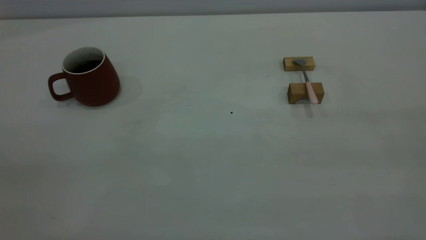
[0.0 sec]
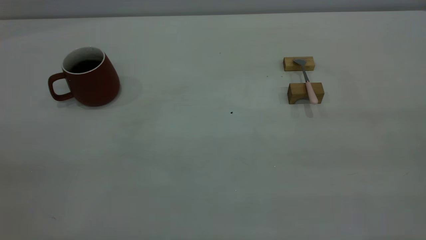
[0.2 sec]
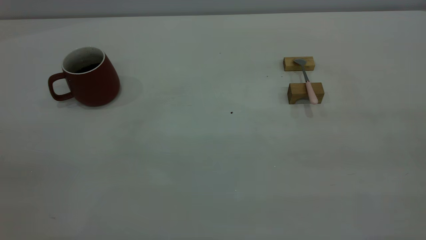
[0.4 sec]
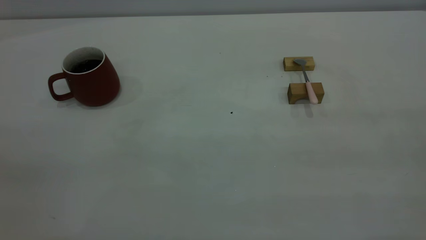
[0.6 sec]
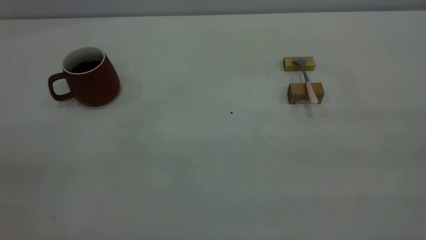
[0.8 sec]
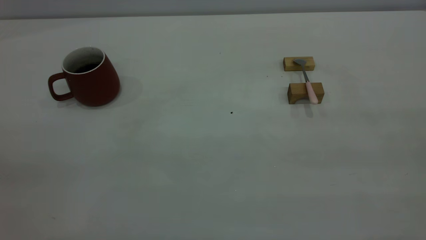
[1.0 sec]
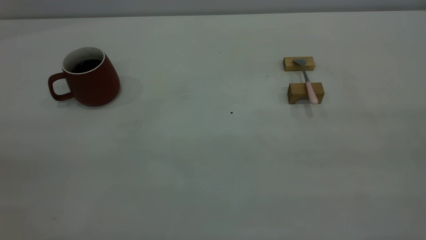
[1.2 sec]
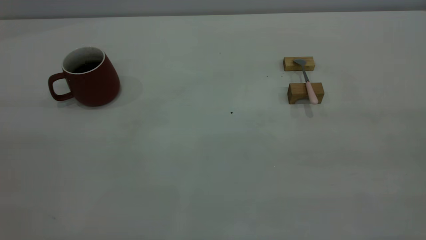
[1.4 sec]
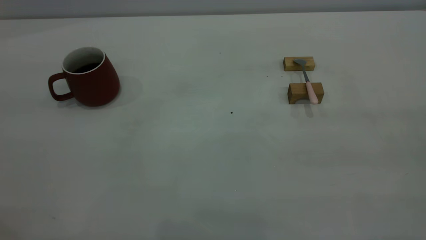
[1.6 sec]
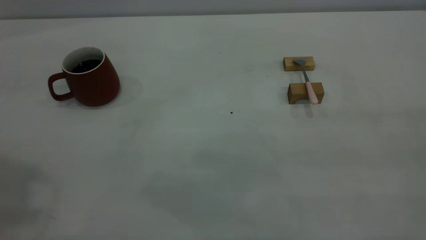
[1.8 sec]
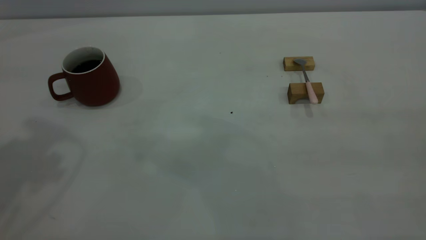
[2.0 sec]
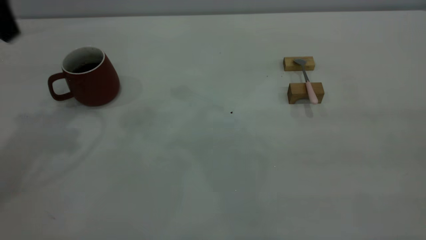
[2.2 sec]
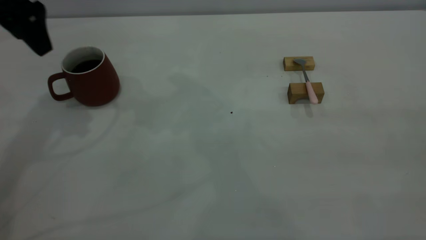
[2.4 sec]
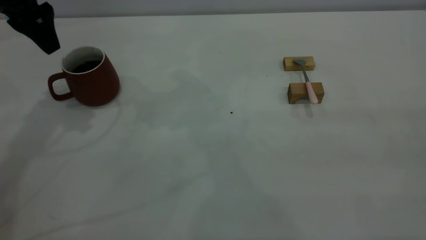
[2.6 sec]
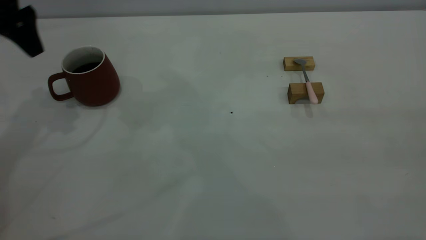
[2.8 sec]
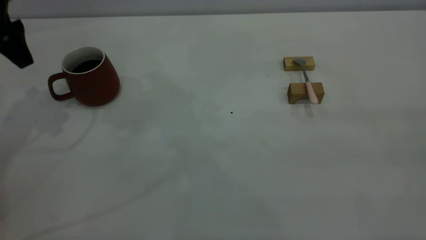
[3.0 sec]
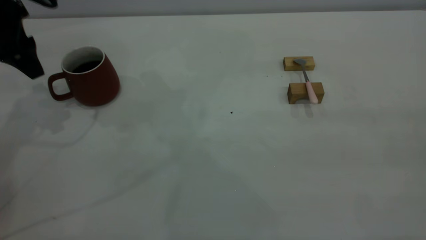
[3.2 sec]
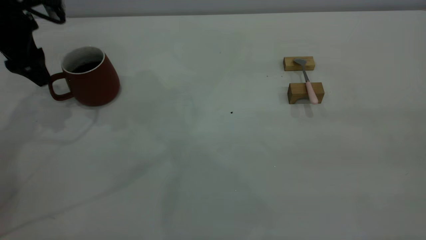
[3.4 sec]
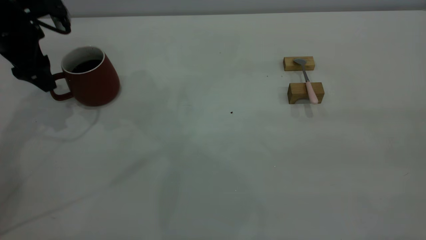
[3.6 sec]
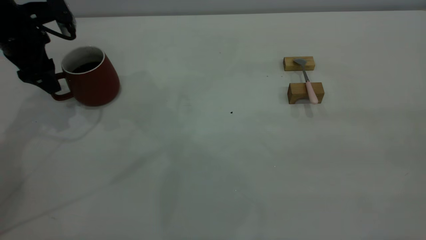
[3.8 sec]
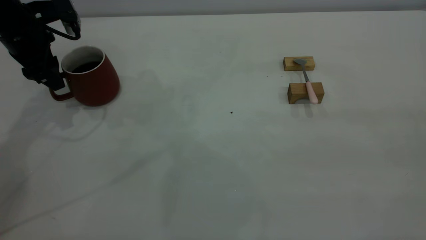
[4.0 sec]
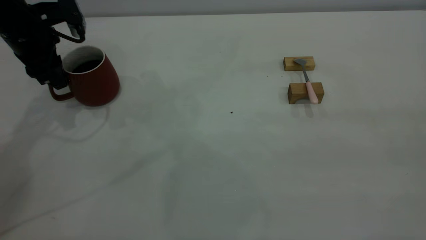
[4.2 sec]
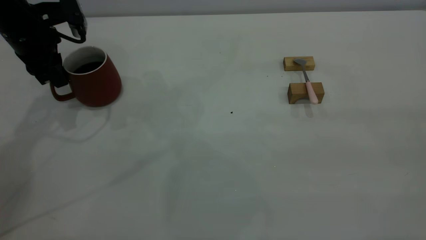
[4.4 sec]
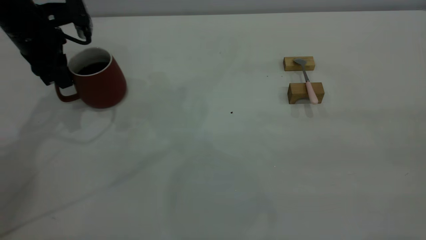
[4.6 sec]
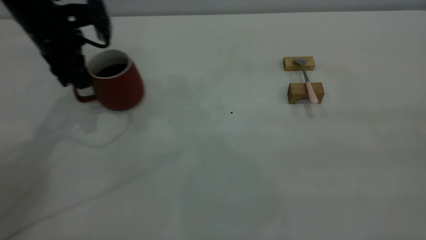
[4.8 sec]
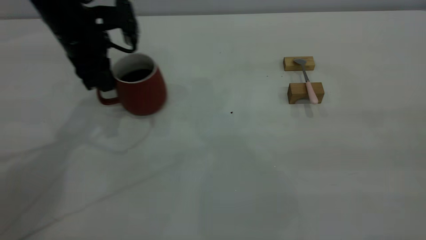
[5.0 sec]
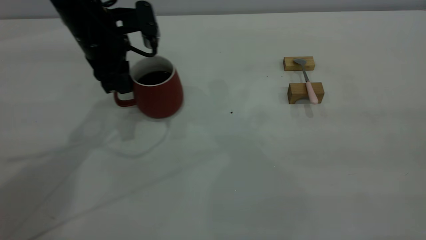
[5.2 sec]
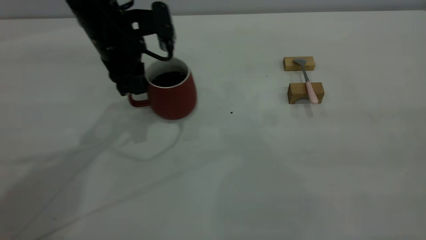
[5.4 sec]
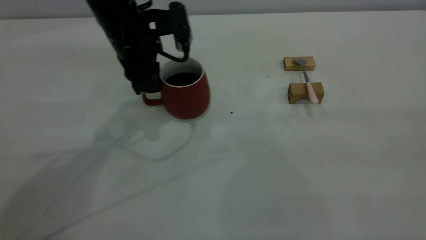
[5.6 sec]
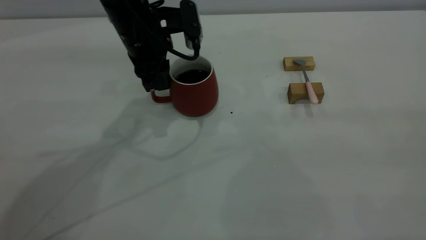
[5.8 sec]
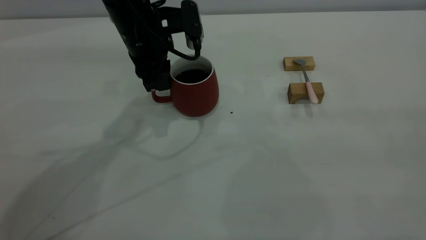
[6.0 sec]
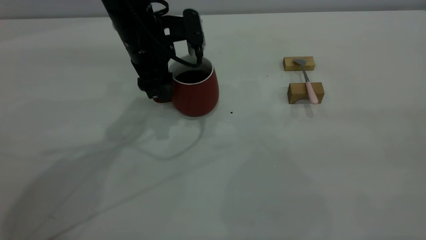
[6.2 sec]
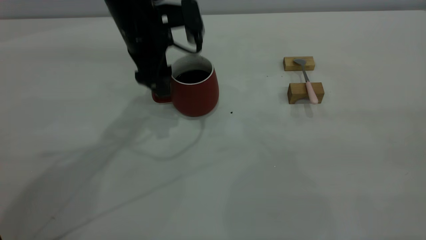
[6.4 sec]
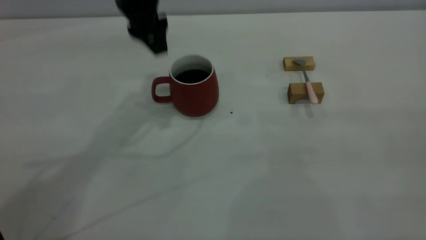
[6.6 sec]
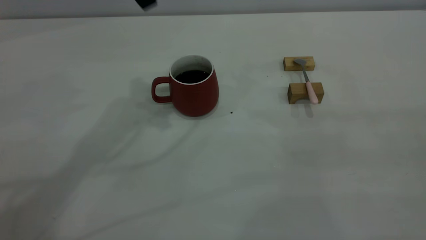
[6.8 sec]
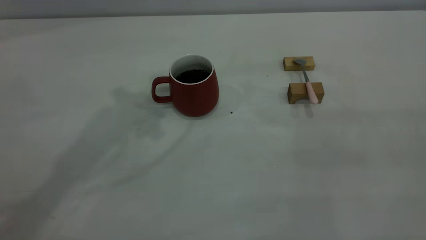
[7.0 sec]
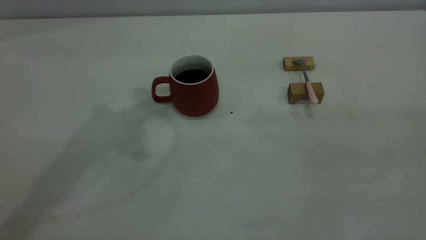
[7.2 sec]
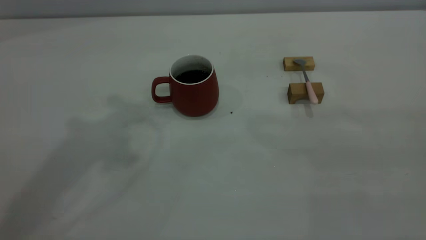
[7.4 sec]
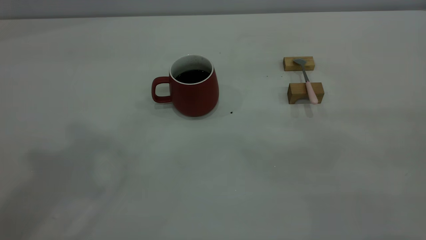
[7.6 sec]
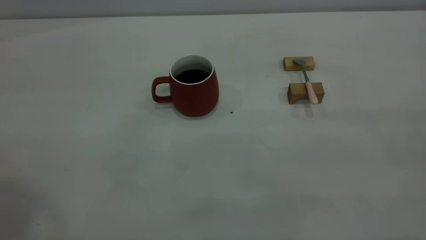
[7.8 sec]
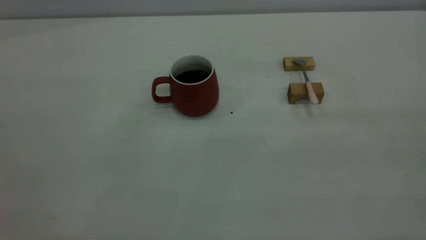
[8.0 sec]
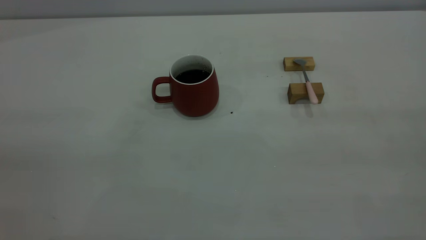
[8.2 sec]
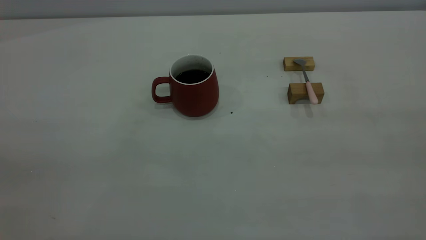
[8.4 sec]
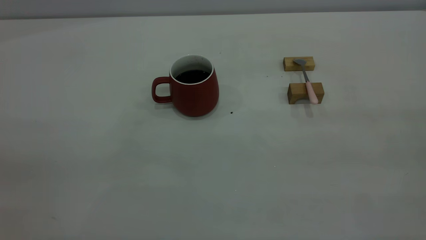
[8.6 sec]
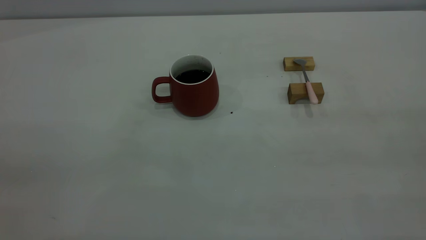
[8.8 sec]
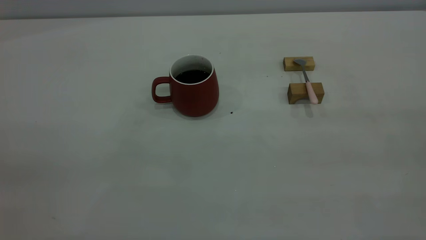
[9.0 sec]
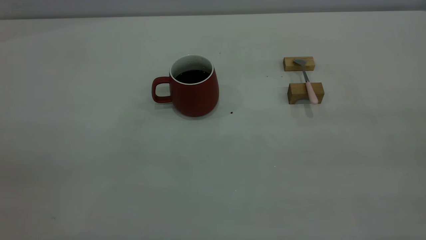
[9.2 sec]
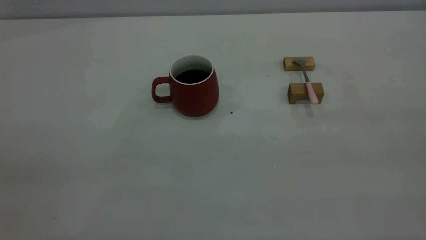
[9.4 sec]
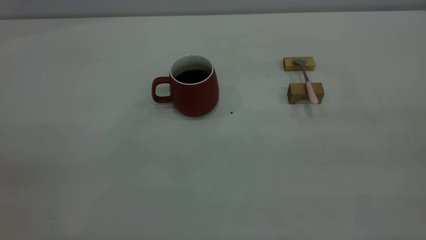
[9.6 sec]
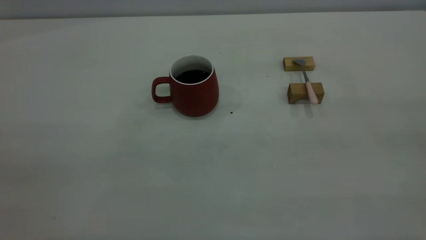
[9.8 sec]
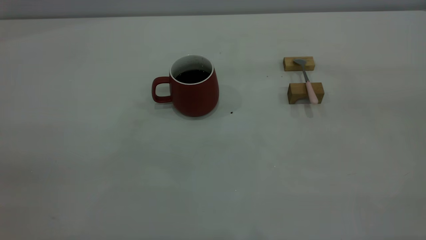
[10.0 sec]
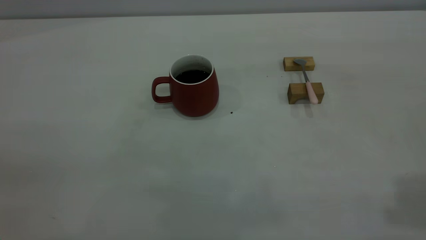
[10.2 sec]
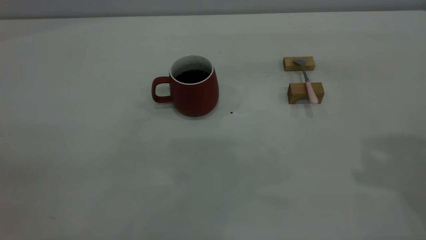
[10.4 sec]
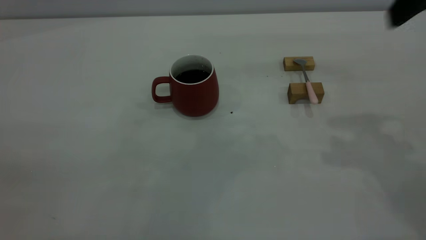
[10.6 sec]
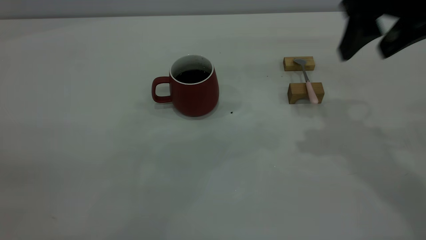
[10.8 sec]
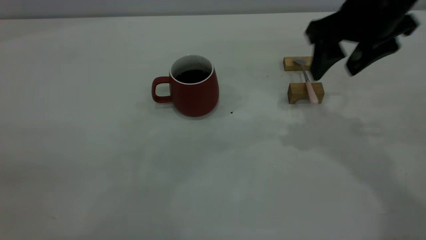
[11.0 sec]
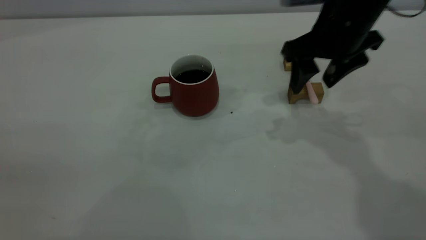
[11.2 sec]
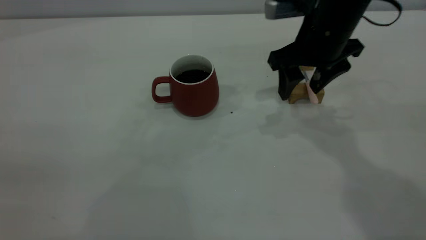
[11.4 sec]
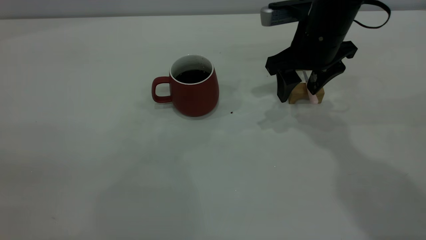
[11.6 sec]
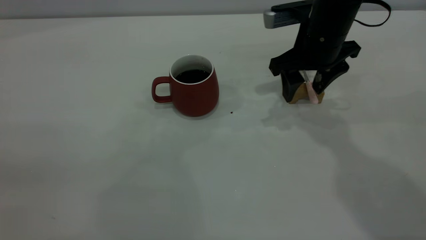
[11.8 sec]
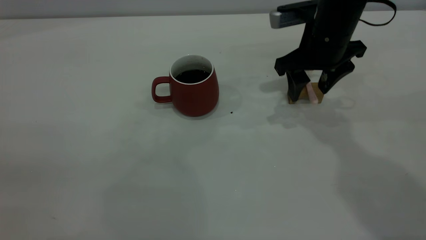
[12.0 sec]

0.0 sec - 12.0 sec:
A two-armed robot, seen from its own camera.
Step, 0.0 sec - 6.4 sec: Move the cup with coffee to the center of view.
1.6 sec - 3.0 sec: The left gripper moves forward and downward, about 35 cm, and opens up.
3.0 sec - 4.4 sec: The left gripper moves downward, some 5 cm, and closes up.
4.4 sec - 6.0 sec: The left gripper goes approximately 20 cm to the right.
6.0 sec - 7.6 sec: The left gripper is displaced upward and backward by roughly 40 cm, and opens, then closes again.
10.4 sec - 12.0 sec: The right gripper travels downward, forward and to the left by approximately 30 cm.

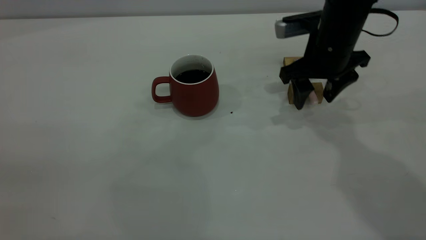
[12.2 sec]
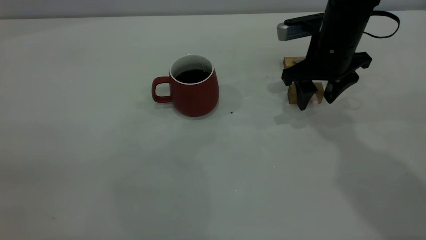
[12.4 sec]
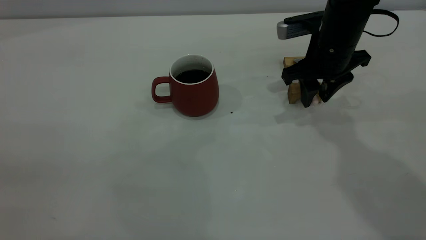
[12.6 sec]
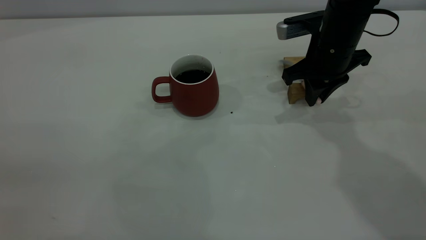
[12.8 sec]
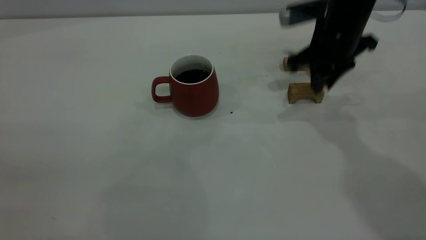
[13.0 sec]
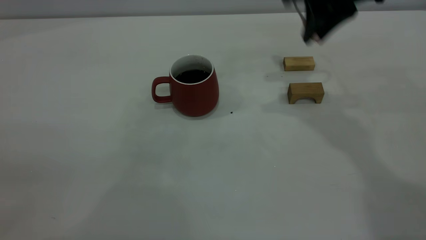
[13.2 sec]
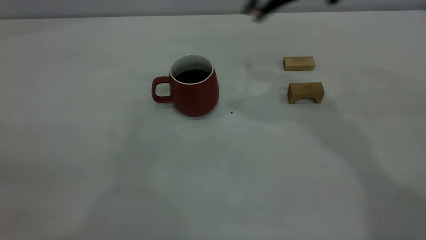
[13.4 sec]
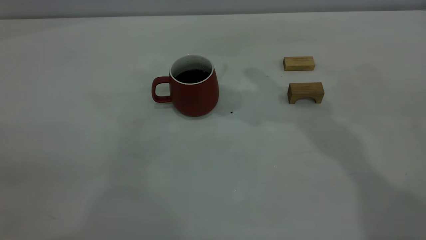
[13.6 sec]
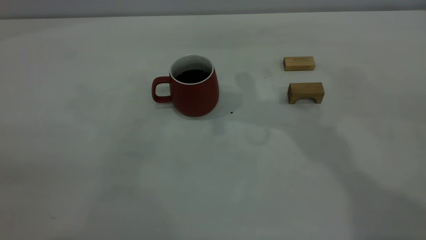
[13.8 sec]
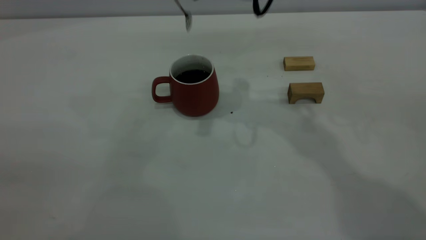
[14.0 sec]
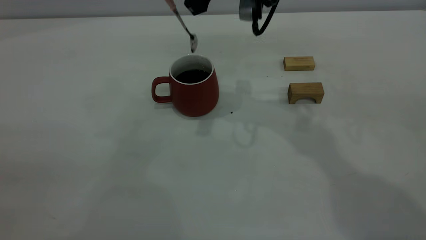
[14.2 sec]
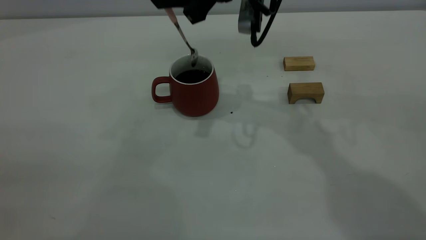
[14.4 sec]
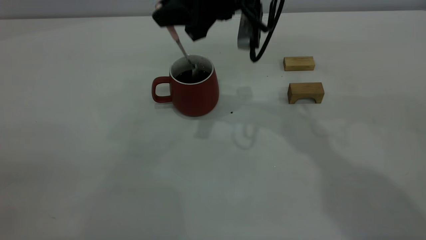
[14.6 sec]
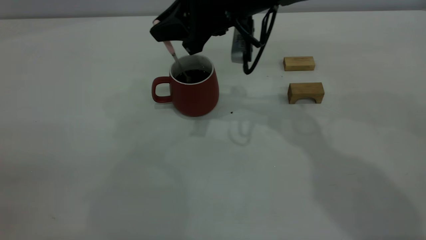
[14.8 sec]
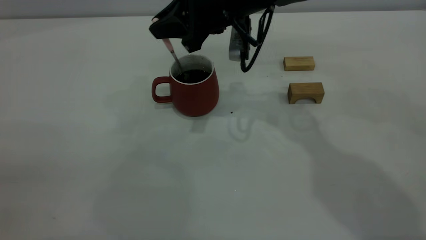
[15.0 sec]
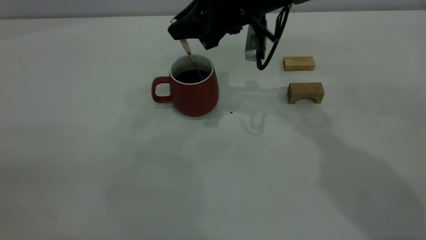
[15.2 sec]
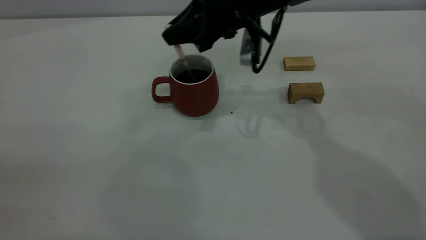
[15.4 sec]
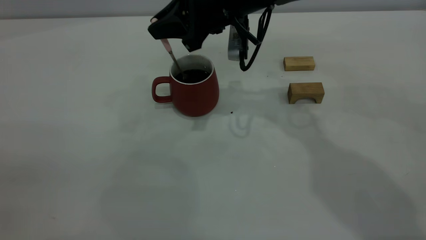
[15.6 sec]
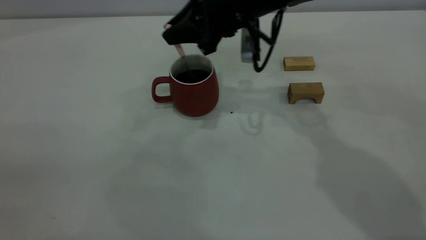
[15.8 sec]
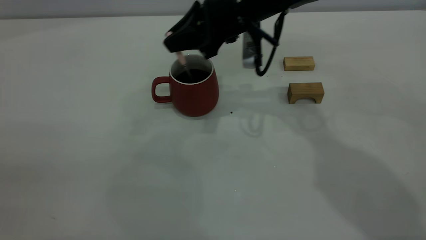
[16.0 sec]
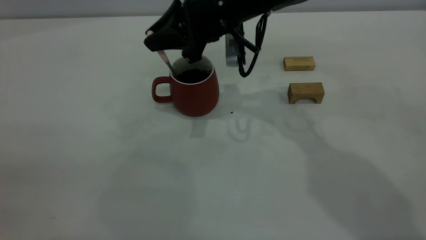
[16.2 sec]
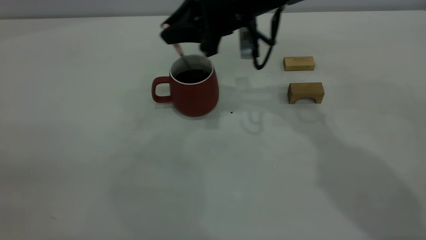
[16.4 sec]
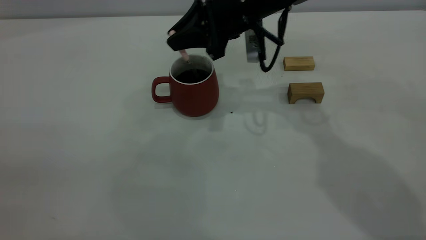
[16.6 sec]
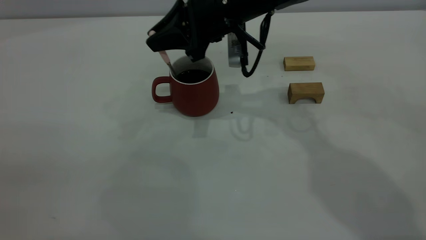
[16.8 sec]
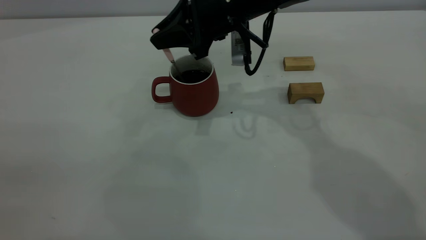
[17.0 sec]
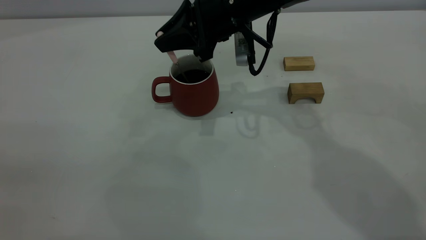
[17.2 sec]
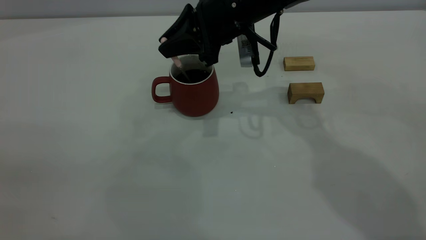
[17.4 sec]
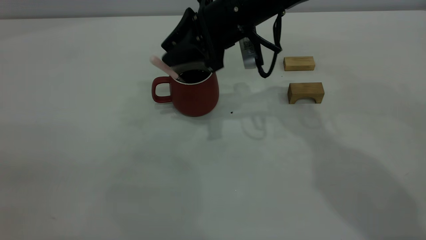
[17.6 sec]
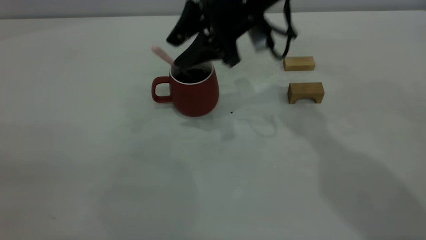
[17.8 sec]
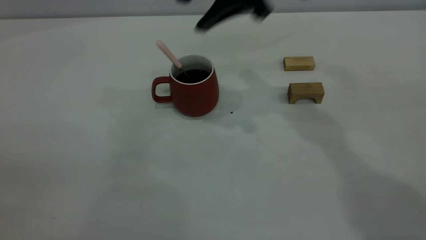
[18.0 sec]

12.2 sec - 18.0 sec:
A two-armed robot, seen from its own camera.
Step, 13.2 sec - 17.8 sec: Stir the coffee in the cup.
12.2 sec - 13.6 sec: The right gripper is displaced upward and to the left by some 20 cm, and closes.
13.6 sec - 15.0 sec: The right gripper goes roughly 10 cm downward.
15.0 sec - 16.6 sec: The grippers stay close to where they were, moving slightly.
16.6 sec - 18.0 sec: The right gripper heads upward, covering about 10 cm, and opens up.
